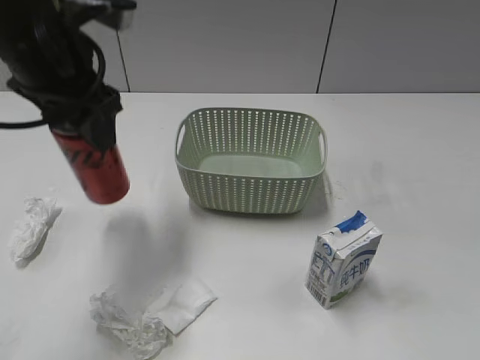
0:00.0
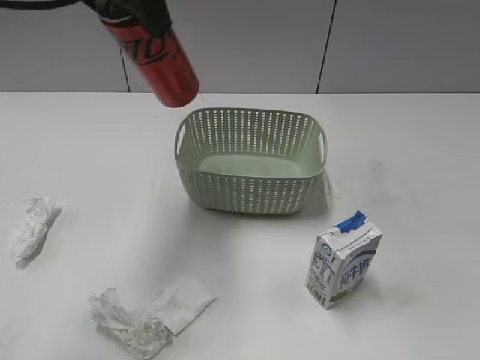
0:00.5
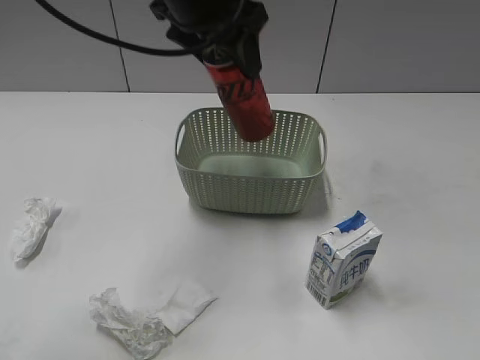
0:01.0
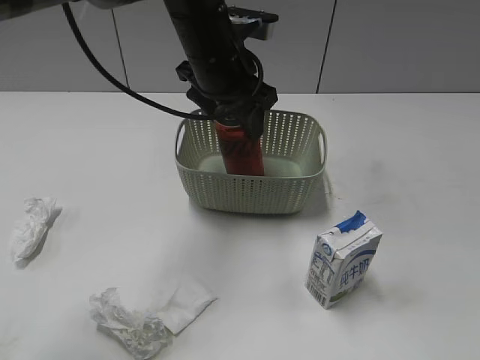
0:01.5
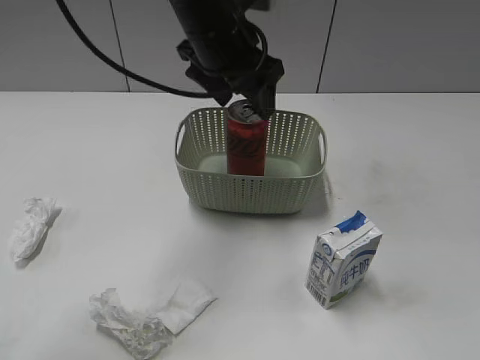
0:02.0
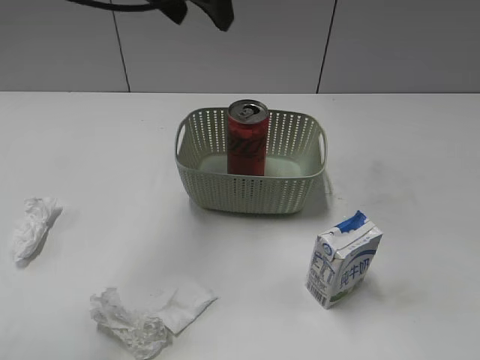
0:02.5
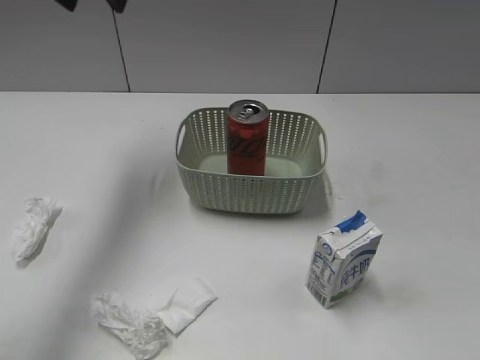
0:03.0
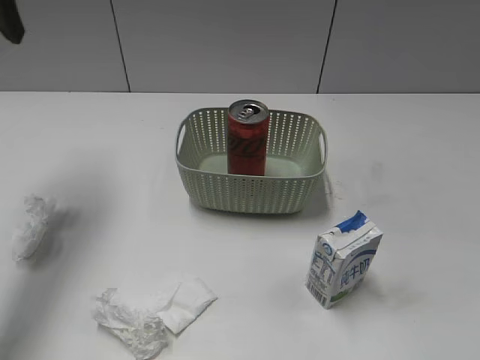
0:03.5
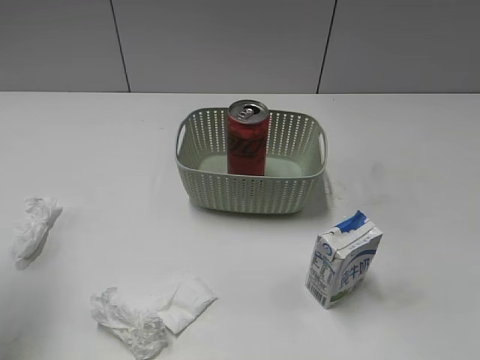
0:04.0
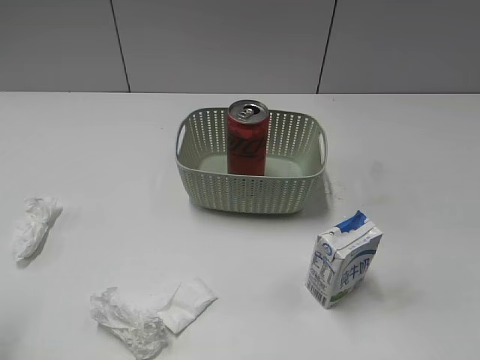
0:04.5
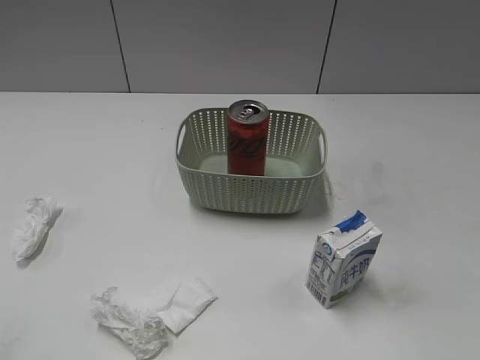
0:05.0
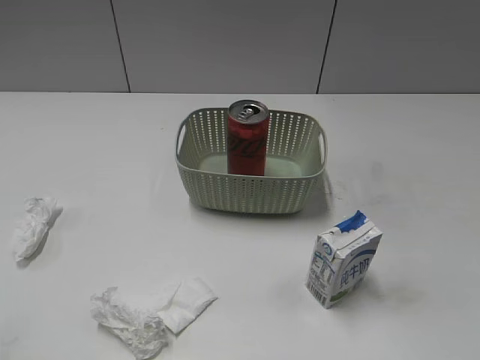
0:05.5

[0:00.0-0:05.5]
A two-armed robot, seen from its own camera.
Step, 0:00.0 to 0:02.0: Place the cola can in the basket with left gripper.
0:00.0 to 0:02.0: The left gripper moves to the right and forward, some 15 cm, travels upward and back again, some 10 cm each way, and opens its fingers.
0:02.0 to 0:03.5: The left gripper shifts roughly 25 cm to the left, and closes up.
0:03.5 to 0:05.5: The left gripper moves backward, about 35 cm.

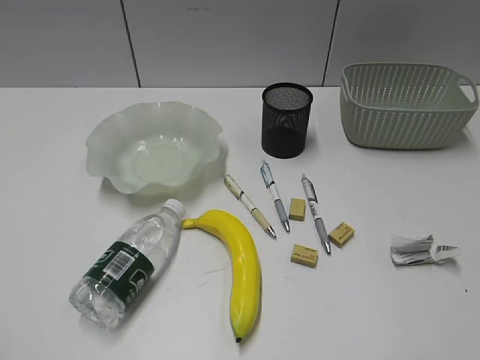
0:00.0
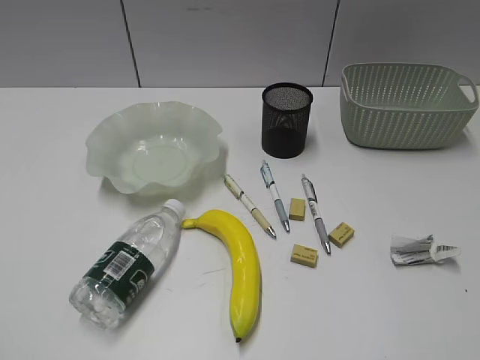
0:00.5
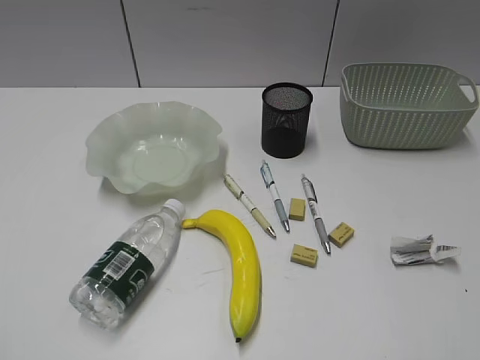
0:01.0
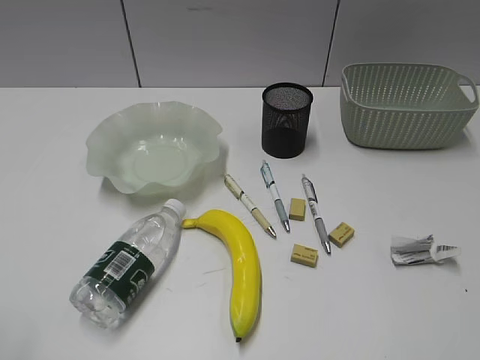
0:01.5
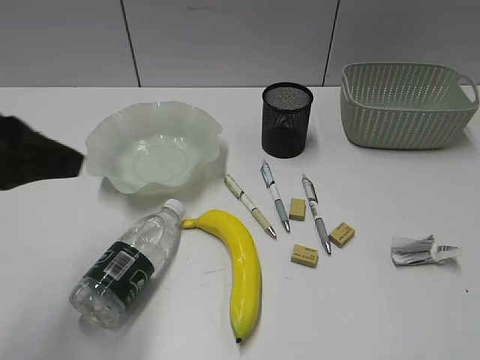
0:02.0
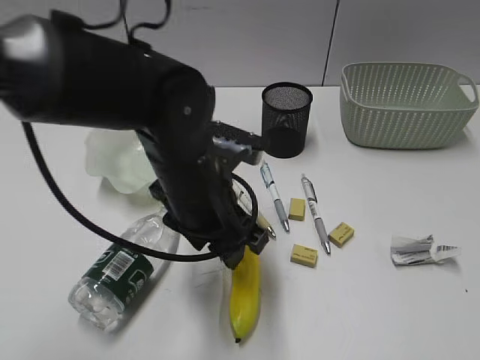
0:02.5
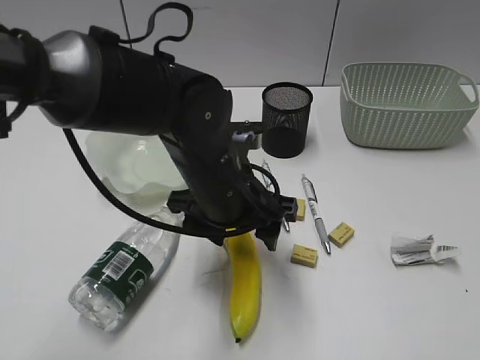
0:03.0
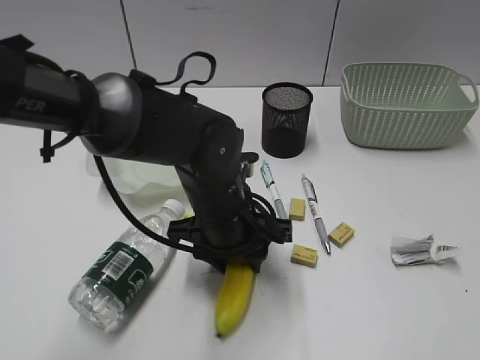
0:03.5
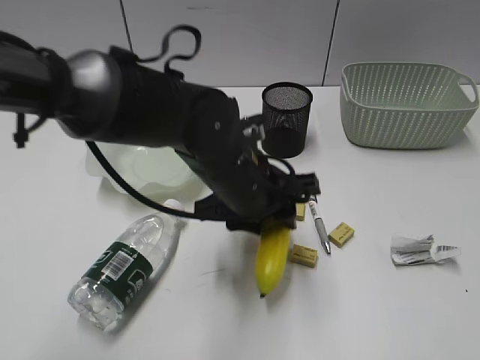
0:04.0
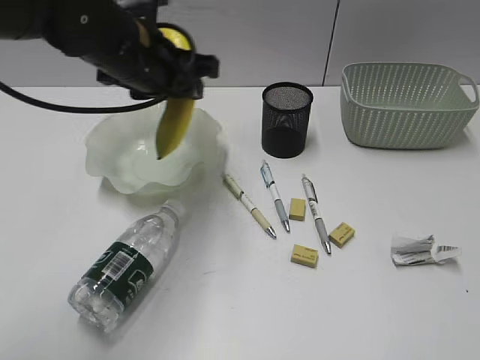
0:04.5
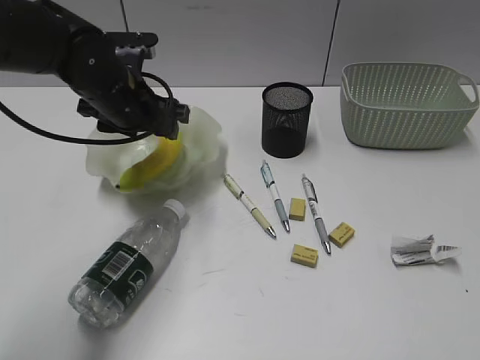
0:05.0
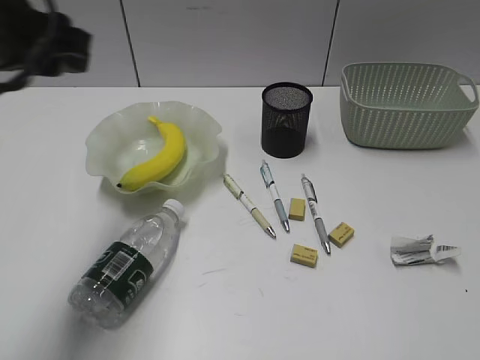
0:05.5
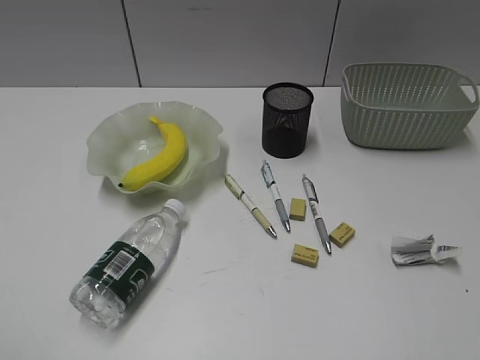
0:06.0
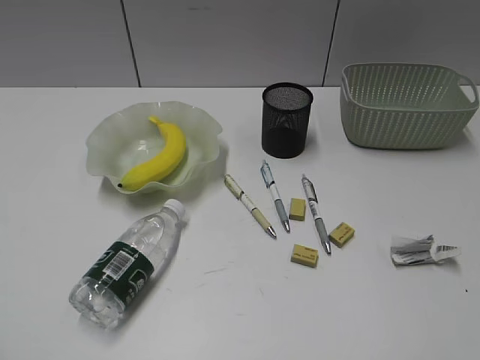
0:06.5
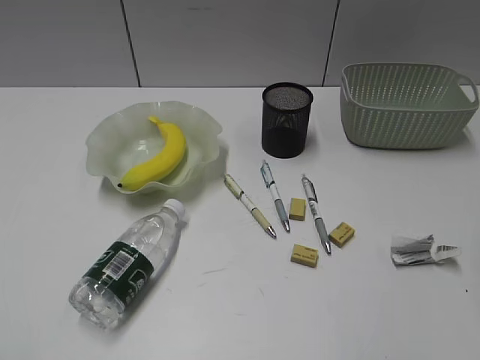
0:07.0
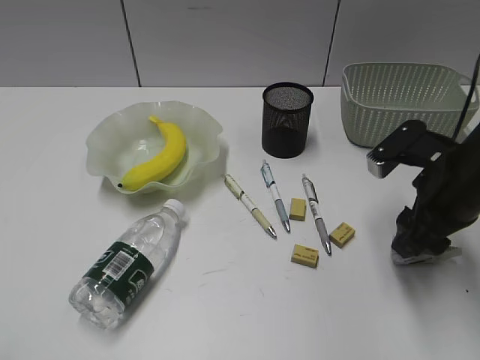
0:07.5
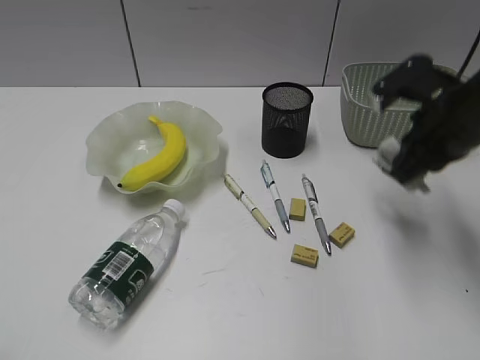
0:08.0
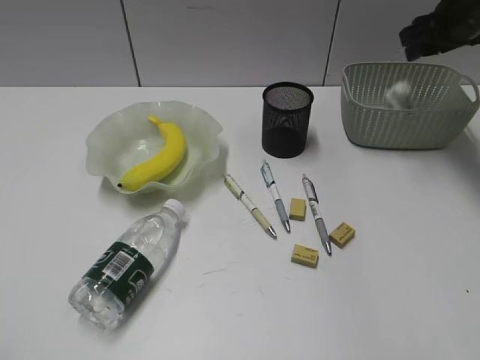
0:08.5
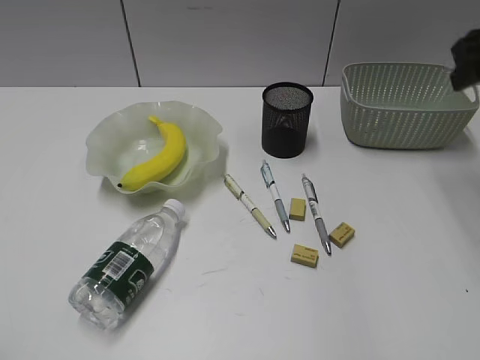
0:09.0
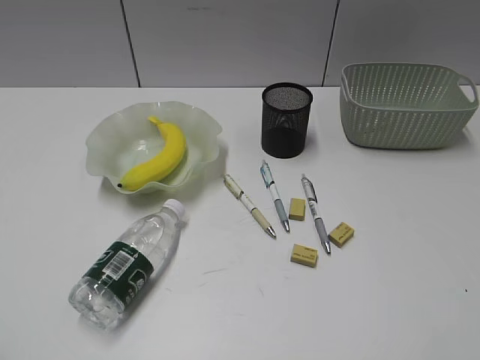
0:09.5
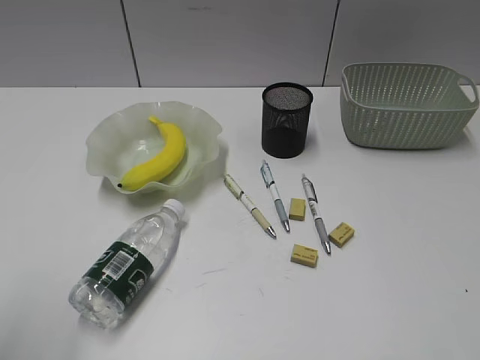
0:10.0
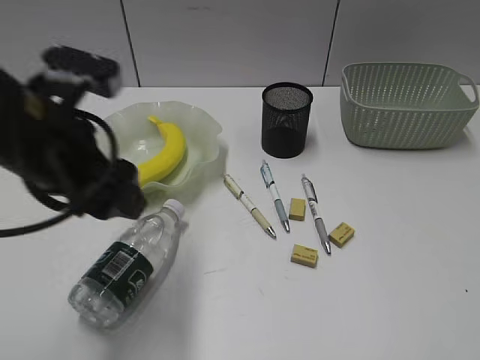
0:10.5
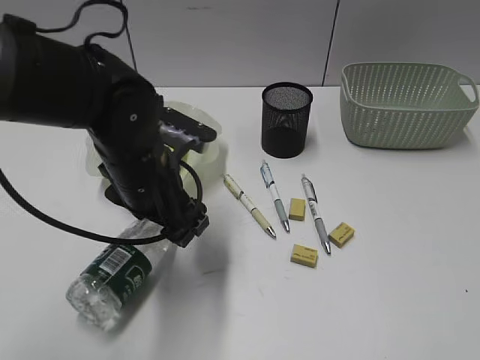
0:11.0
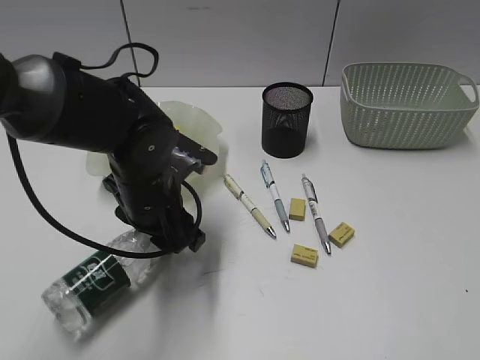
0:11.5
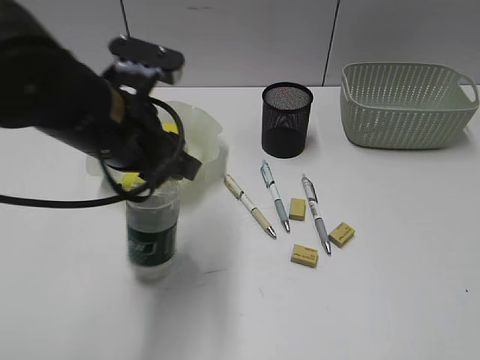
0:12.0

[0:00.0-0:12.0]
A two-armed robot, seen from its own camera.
Step, 0:01.5 to 0:03.5: Grasp the banana with left gripper.
Step, 0:04.0 to 0:05.0: Place the banana in the plate with left gripper.
Step, 0:05.5 to 0:07.5: Grasp the waste paper with right gripper.
Step, 0:08.0 to 0:08.5: Place the waste paper in the basket with right gripper.
Step, 0:09.0 to 0:11.5: Grasp the bottle with left gripper.
0:02.0 to 0:04.0: The left gripper heads to the right and downward, covering about 25 cm, and opens and closes again.
0:04.0 to 0:06.0: The left gripper heads to the left, backward and upward, covering roughly 50 cm, and opens up.
0:06.0 to 0:08.0: The right gripper moves forward, about 35 cm, and closes up.
0:08.0 to 0:10.0: The right gripper is displaced backward by approximately 30 cm, and opens up, while the left gripper moves forward, some 10 cm.
0:10.0 to 0:12.0: The left gripper is displaced forward, to the right and downward by roughly 25 cm, and closes.

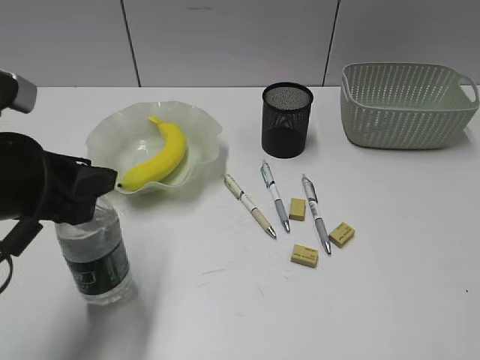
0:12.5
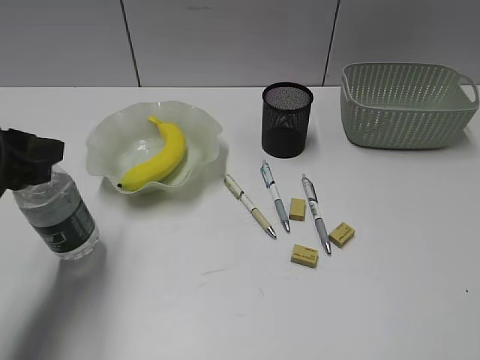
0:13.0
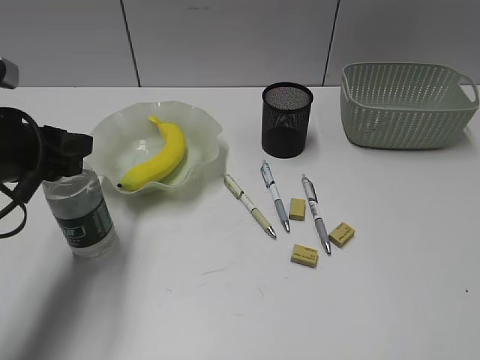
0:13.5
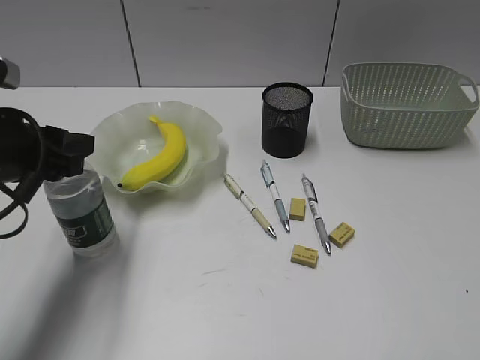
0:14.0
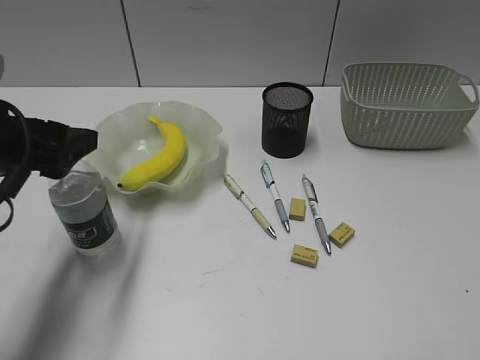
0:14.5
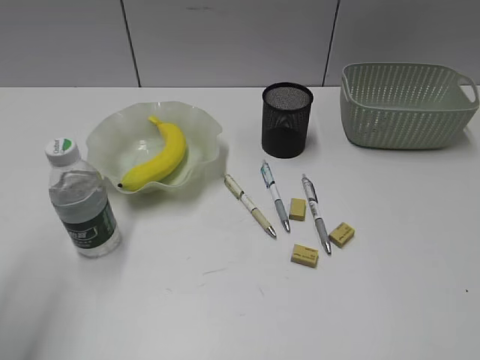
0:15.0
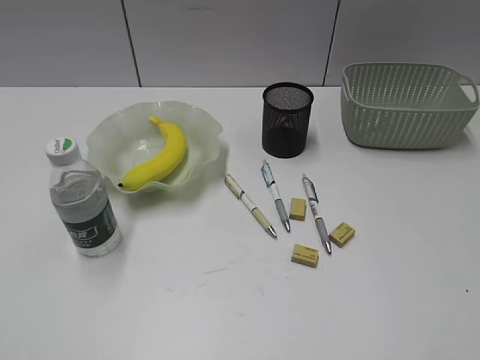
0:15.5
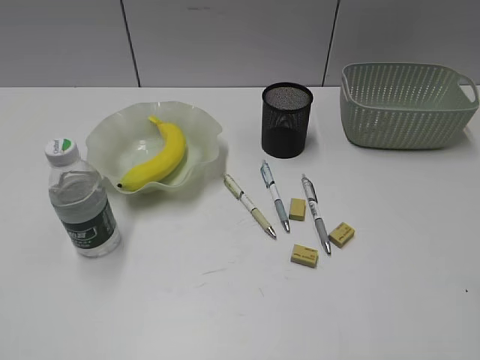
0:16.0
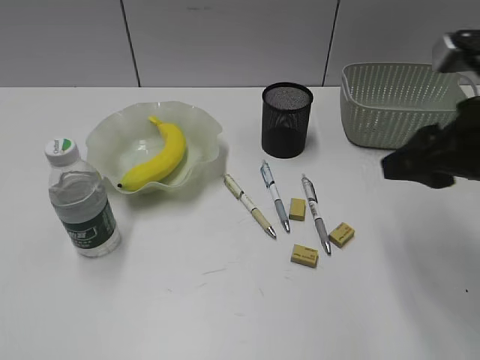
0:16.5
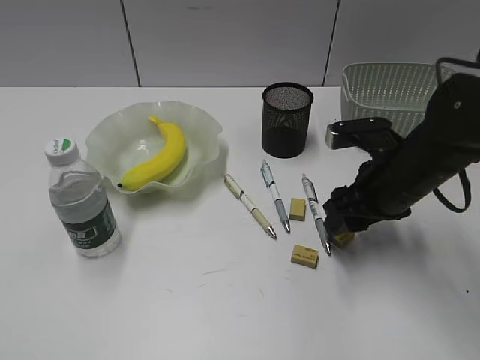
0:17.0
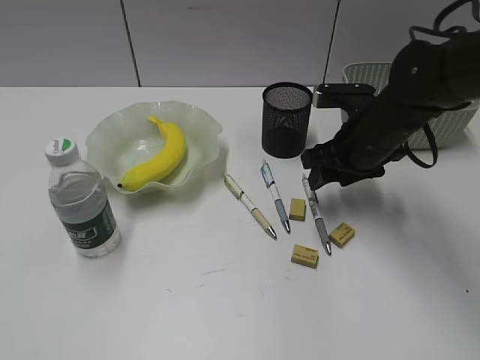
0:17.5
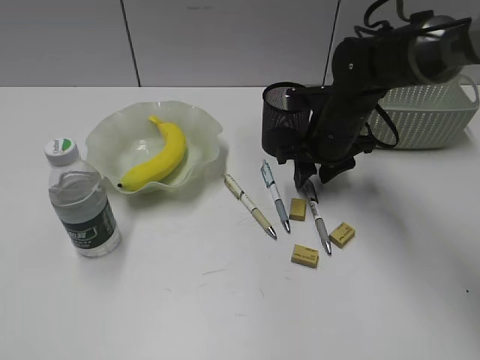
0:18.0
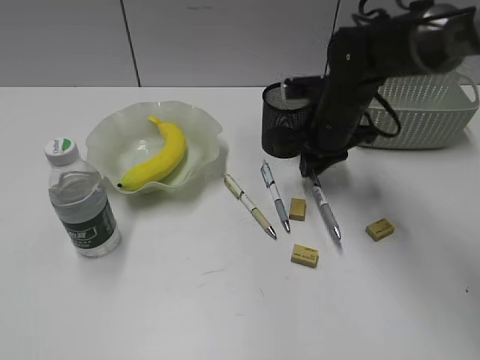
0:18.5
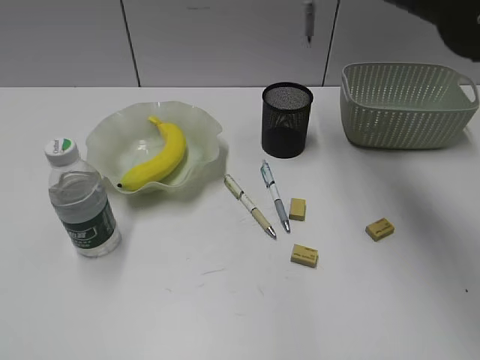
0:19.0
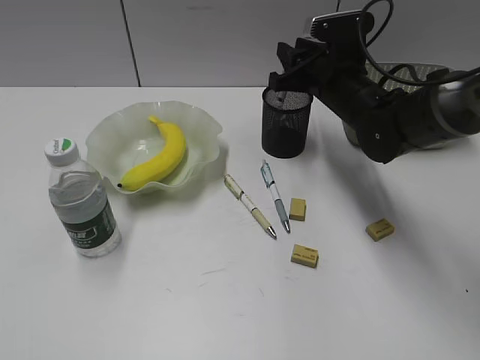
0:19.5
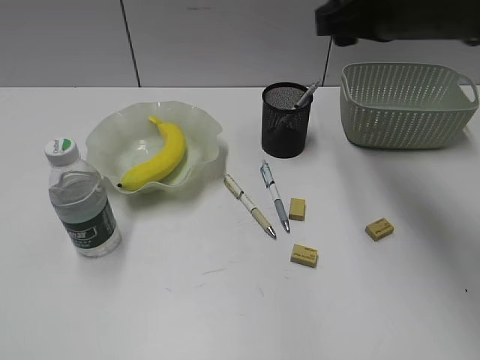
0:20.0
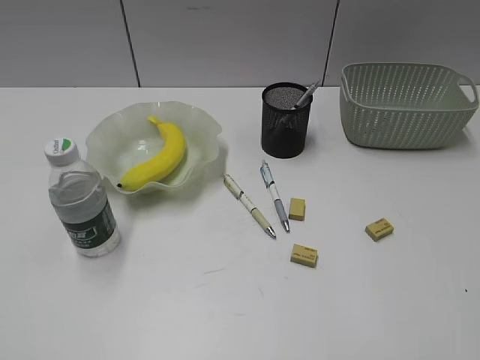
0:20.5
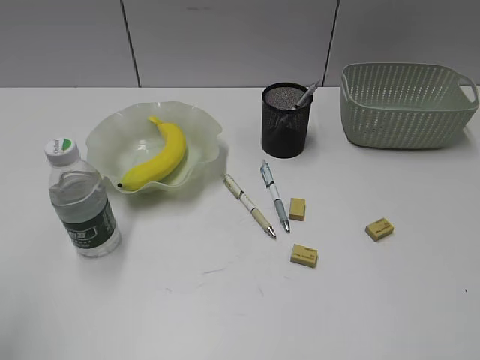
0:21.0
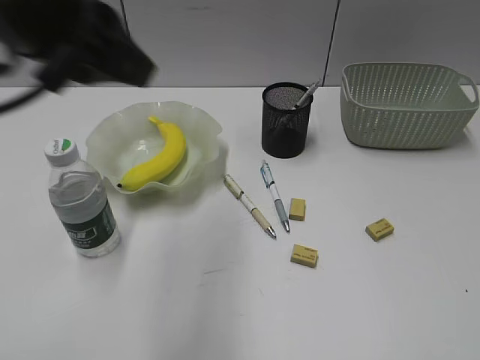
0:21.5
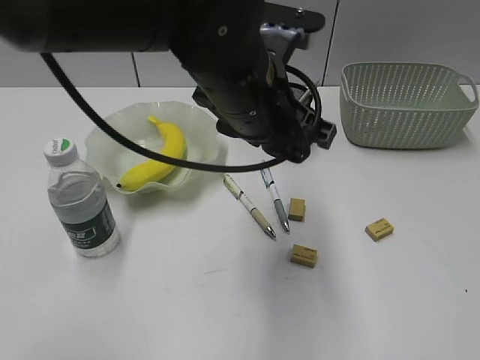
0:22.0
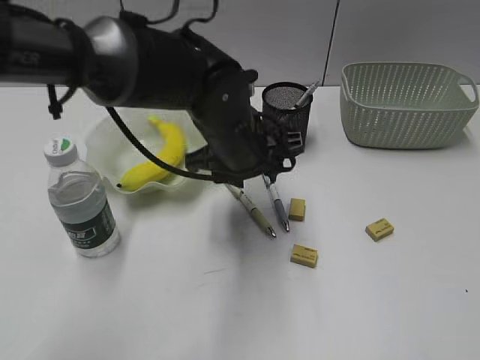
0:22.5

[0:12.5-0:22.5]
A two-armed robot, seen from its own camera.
Step, 0:12.5 to 0:14.5: Stand the bottle with left gripper.
Step, 0:15.0 to 0:18.0: Grasp the gray pen with right gripper.
Step, 0:18.5 to 0:19.5: Place the gray pen in pen holder with right gripper.
0:12.5 to 0:14.5: The left gripper moves about 5 cm, and opens.
0:14.5 to 0:16.5: The right gripper is displaced forward by about 25 cm. The left gripper shifts roughly 25 cm backward and to the left.
0:16.5 to 0:18.5: The right gripper travels forward, to the left and downward by roughly 20 cm, and closes.
0:18.5 to 0:20.5: The right gripper shifts some 40 cm backward, upward and to the right, and opens its fingers.
0:20.5 to 0:22.5: The right gripper heads backward, covering some 10 cm. The left gripper travels to the right and forward by approximately 50 cm.
